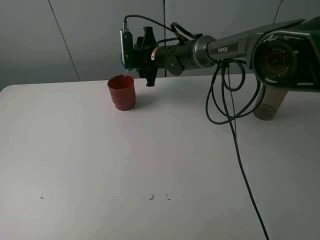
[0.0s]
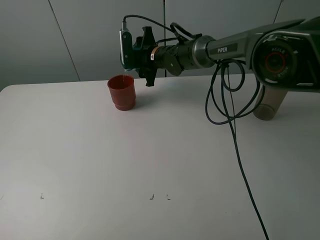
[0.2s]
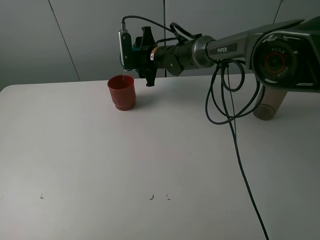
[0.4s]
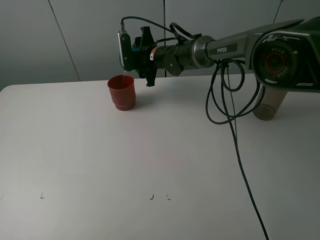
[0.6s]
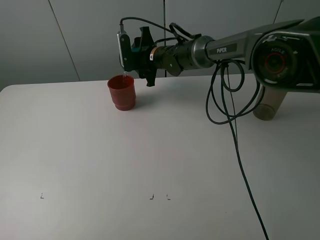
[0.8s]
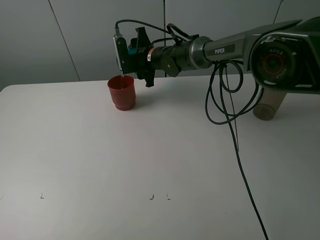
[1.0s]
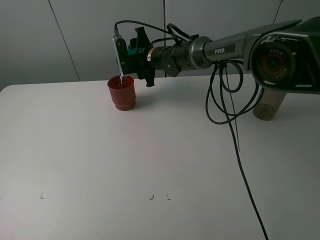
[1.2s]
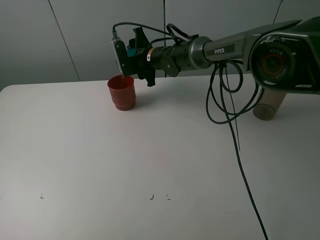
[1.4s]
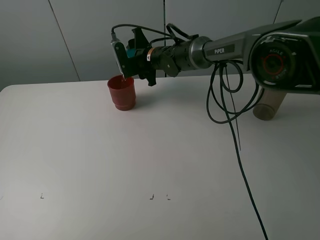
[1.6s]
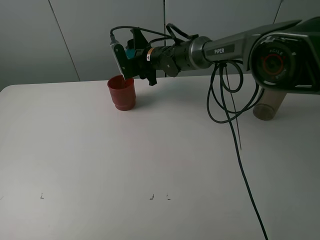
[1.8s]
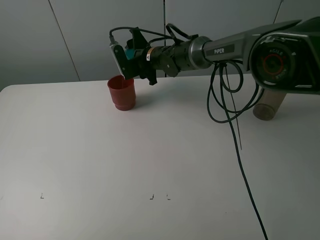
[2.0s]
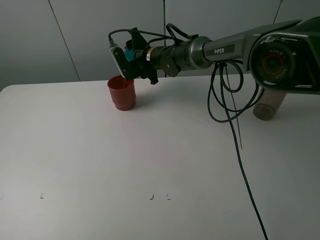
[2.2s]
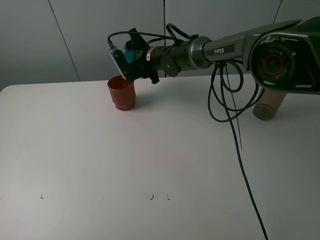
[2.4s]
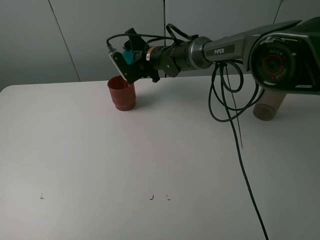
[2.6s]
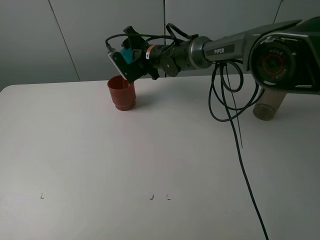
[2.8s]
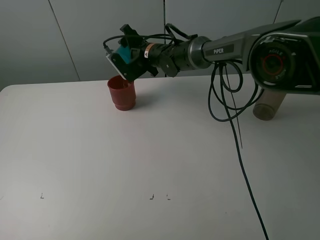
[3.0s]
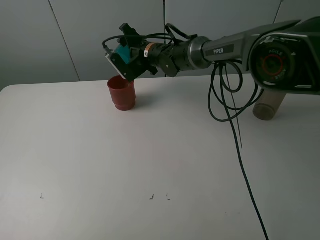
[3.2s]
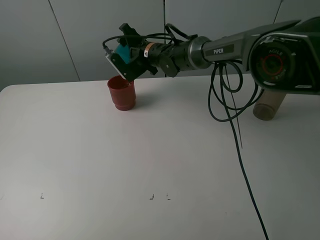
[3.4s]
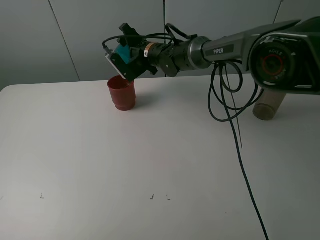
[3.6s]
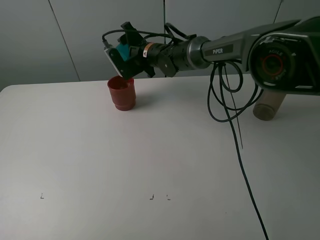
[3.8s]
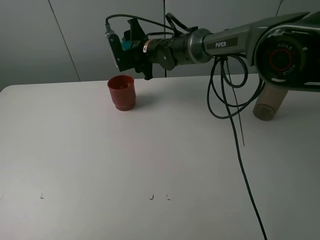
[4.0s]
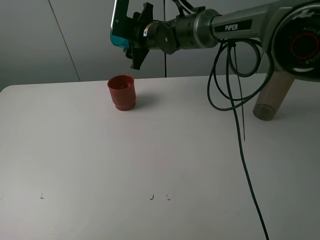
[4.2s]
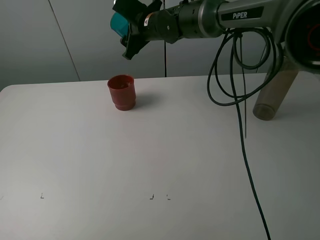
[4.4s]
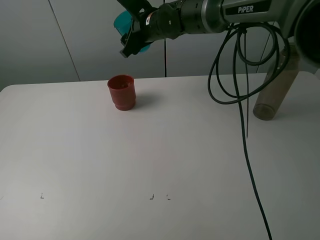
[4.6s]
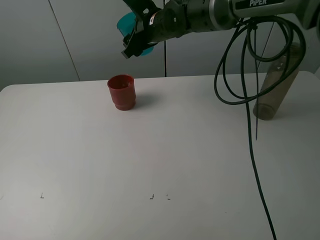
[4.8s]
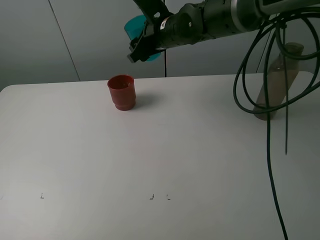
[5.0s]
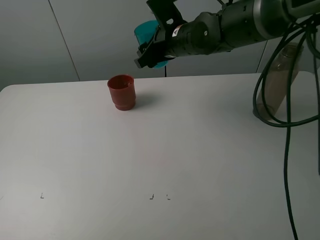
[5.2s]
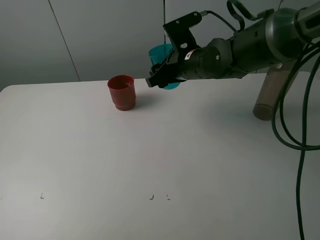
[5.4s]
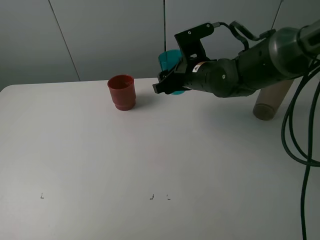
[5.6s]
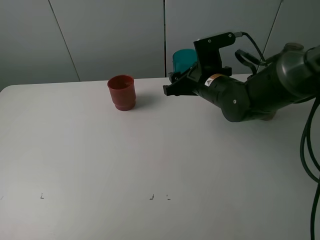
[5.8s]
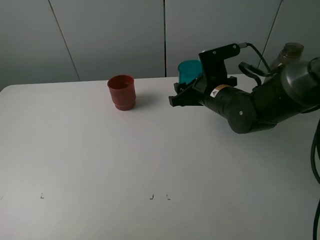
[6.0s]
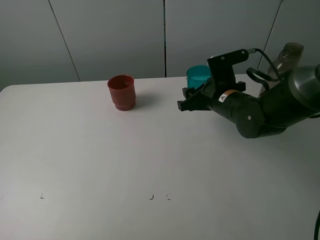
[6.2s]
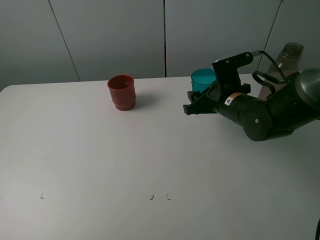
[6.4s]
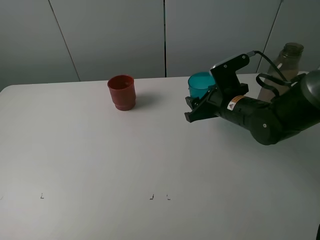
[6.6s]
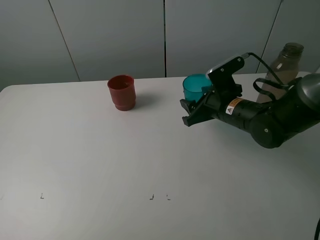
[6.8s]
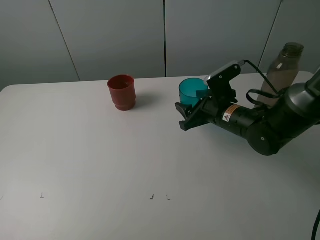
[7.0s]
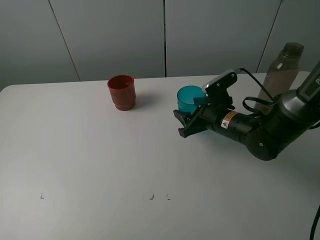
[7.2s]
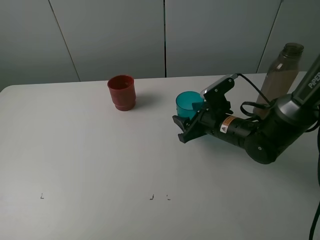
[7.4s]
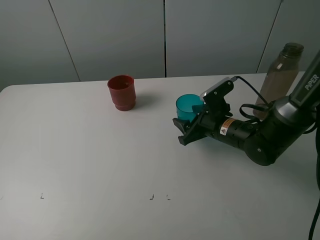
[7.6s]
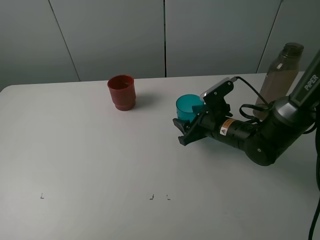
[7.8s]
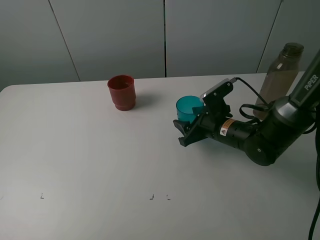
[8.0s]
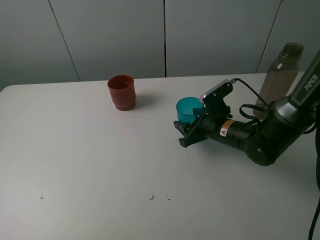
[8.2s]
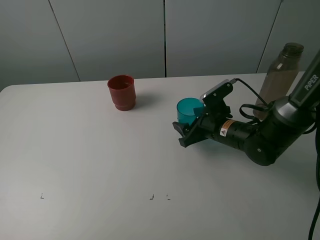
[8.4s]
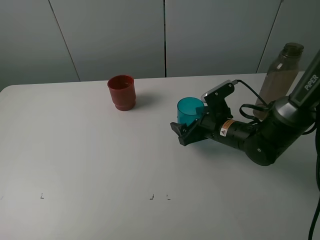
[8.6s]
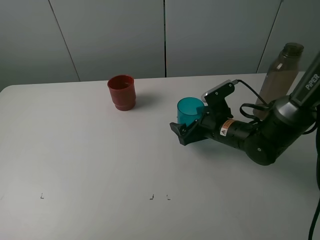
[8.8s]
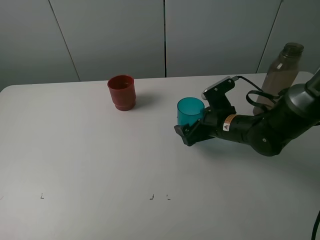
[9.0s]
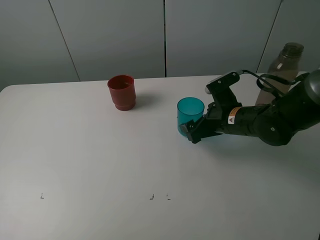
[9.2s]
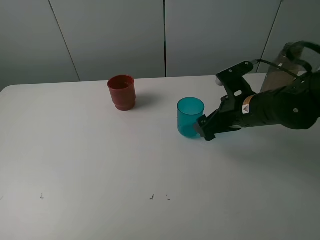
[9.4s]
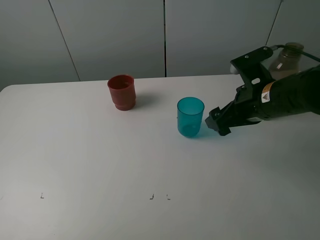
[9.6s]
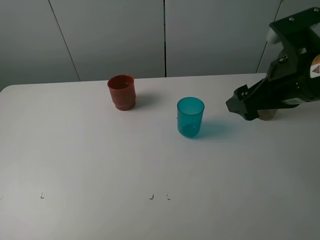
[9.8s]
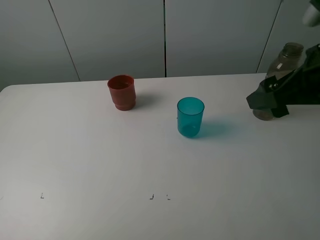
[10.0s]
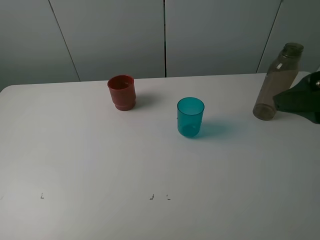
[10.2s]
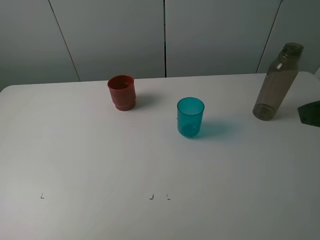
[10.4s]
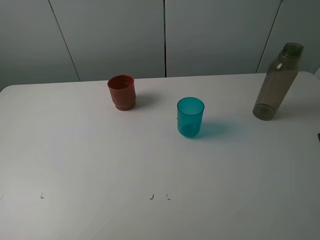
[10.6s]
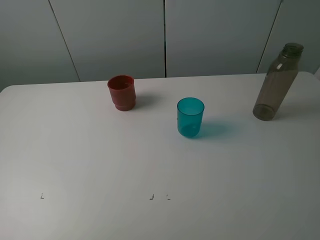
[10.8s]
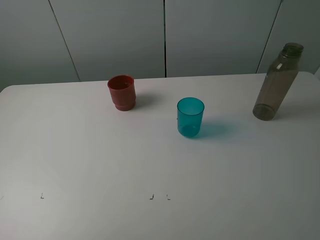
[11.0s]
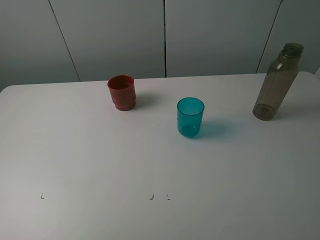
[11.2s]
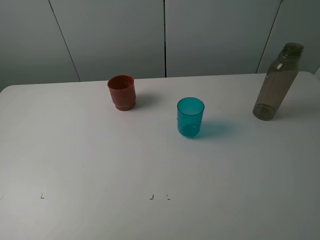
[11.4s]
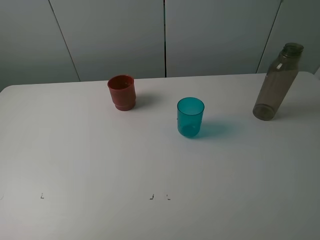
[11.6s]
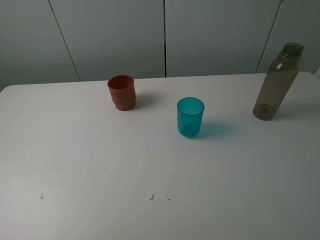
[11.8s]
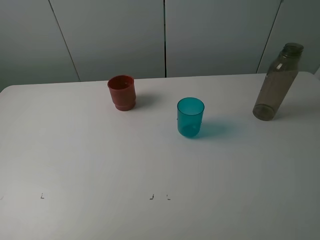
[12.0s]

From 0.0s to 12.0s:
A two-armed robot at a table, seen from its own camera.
Task of the whole recording: pick up the bottle and pour water into the cup, then pick up the cup containing water and pour it into another cup.
Step, from 0.0s to 3.8s: Pour water from blue cup to red cup with the right gripper.
Step, from 4.0s to 8.8s: Place the blue cup with the right gripper.
From 0.0s to 1.6s: The grippers make only small movements.
From 3.0s to 4.4s: The right gripper goes some 10 cm upward.
From 4.4s to 6.0s: The right gripper shifts approximately 20 cm backward, to the right and downward.
From 6.0s to 7.6s: The right gripper moves downward, roughly 5 cm.
From 7.6s to 9.0s: The right gripper opens its fingers.
From 9.0s to 10.4s: The right gripper shifts roughly 30 cm upward, backward and to the right.

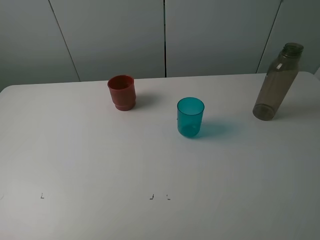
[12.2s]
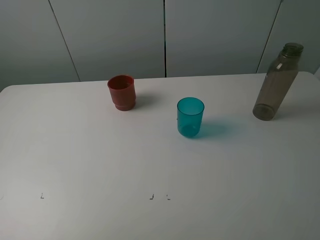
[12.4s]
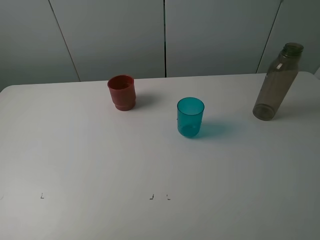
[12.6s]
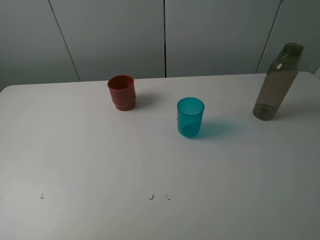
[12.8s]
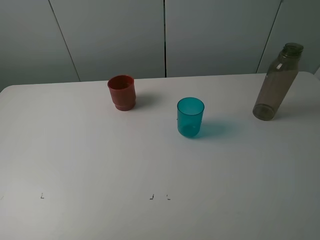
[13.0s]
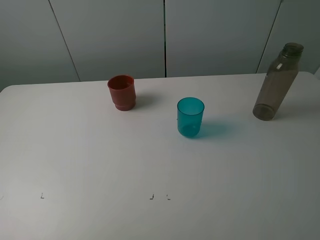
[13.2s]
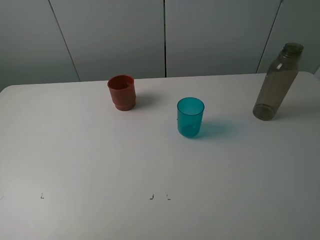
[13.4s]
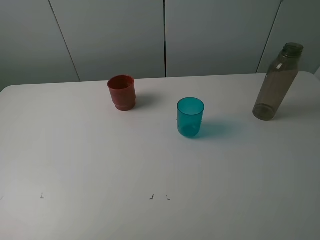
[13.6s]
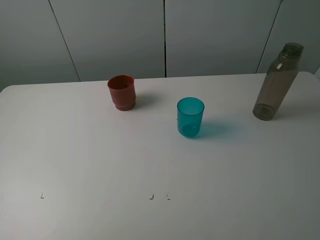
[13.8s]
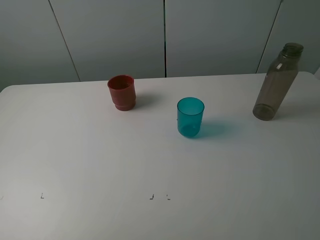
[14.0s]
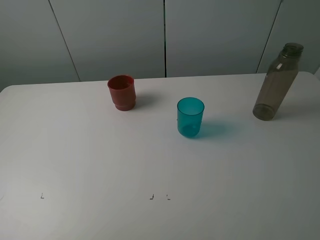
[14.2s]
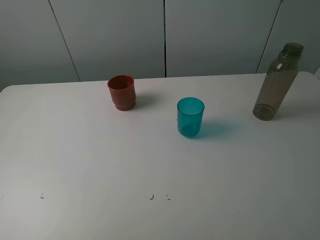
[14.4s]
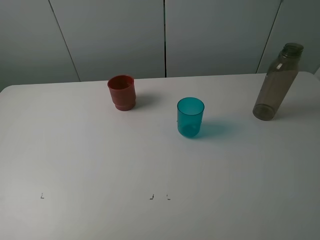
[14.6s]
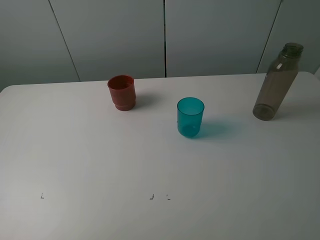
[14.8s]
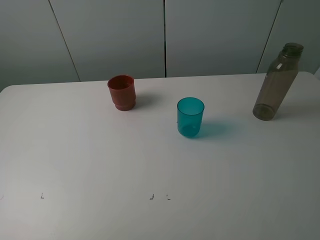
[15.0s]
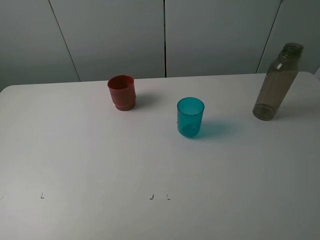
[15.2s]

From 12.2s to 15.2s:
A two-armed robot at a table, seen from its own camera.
Task of the whole recording: pick up the bottle and pour water into the cup, then pick up the cup containing water and pour it into another cup.
From 13.8s to 15.2s: The two grippers keep their place.

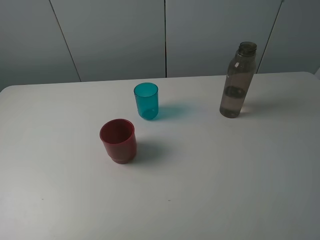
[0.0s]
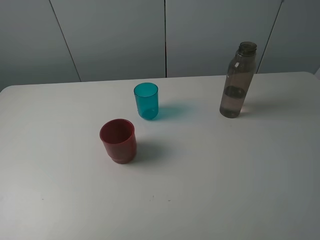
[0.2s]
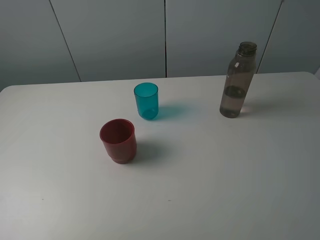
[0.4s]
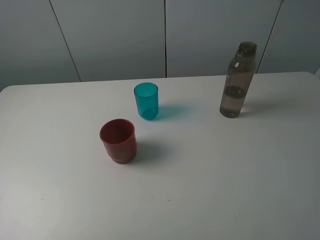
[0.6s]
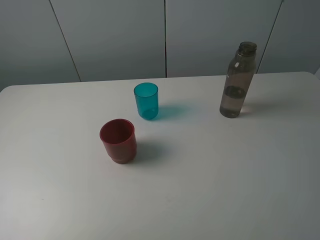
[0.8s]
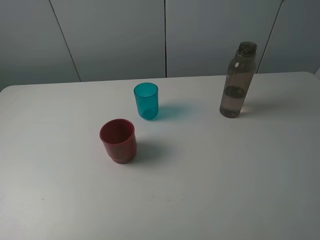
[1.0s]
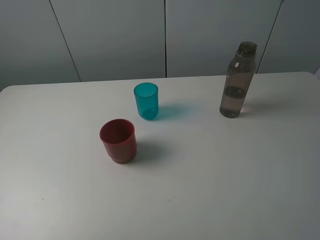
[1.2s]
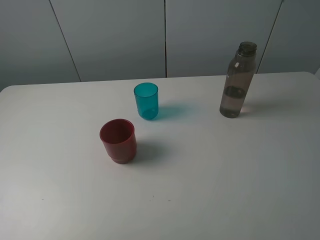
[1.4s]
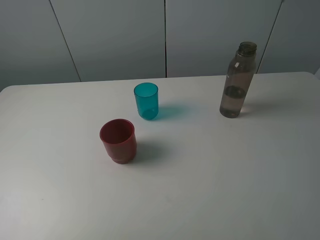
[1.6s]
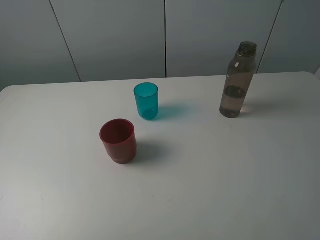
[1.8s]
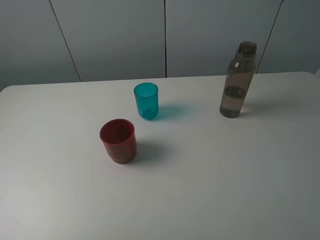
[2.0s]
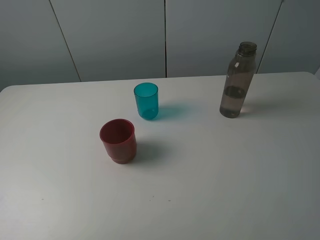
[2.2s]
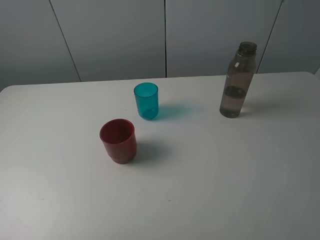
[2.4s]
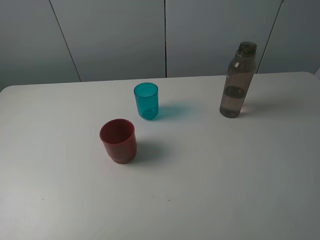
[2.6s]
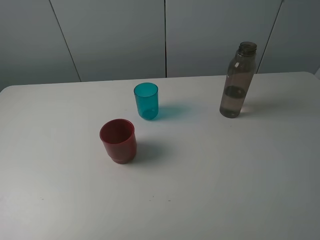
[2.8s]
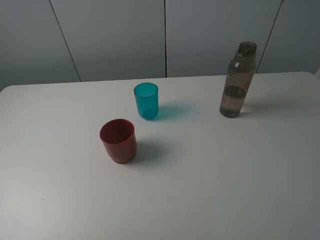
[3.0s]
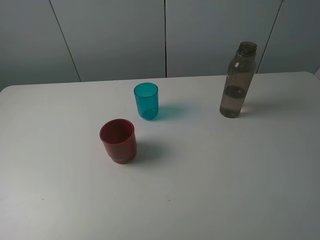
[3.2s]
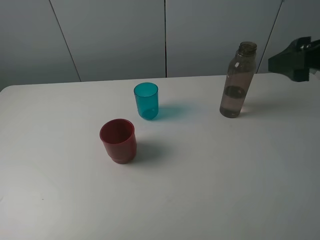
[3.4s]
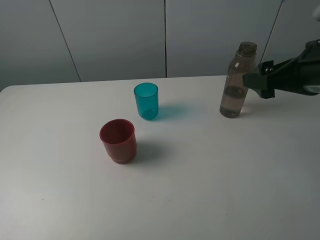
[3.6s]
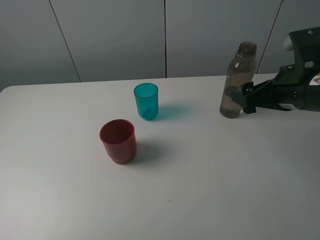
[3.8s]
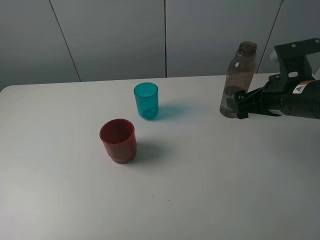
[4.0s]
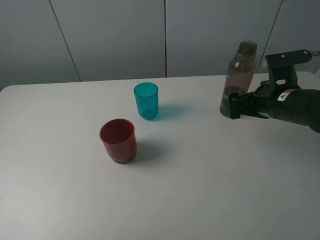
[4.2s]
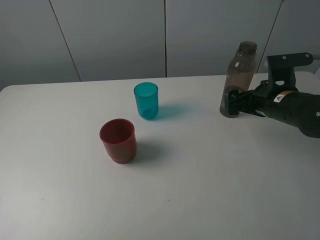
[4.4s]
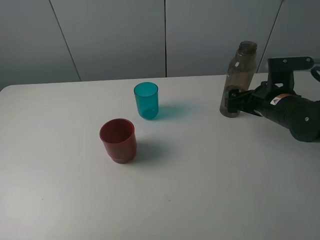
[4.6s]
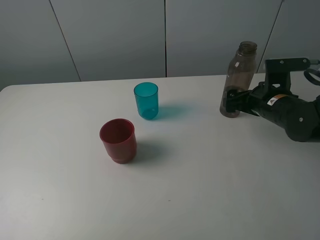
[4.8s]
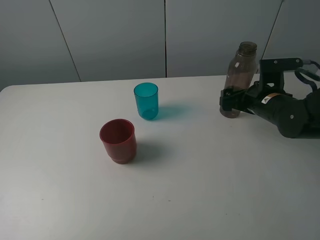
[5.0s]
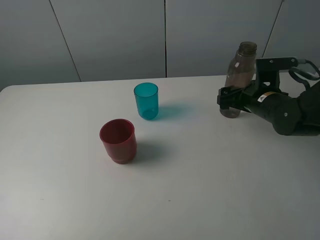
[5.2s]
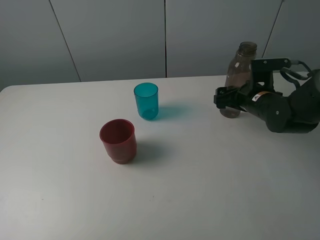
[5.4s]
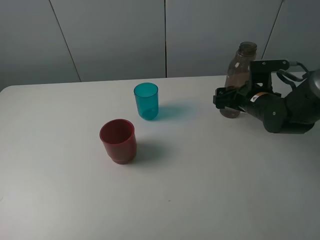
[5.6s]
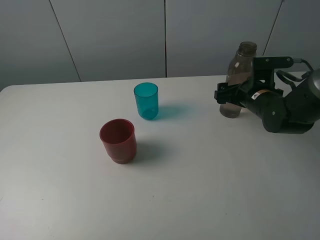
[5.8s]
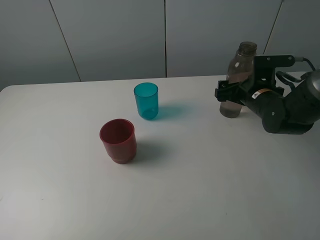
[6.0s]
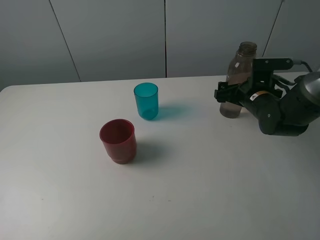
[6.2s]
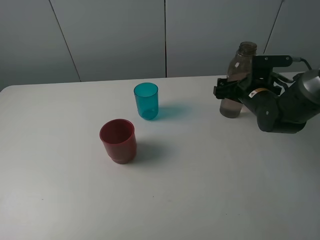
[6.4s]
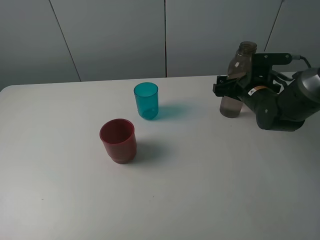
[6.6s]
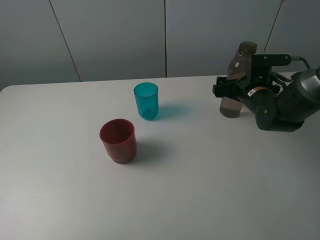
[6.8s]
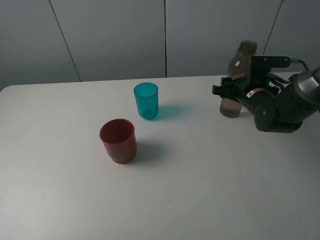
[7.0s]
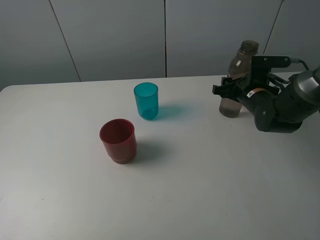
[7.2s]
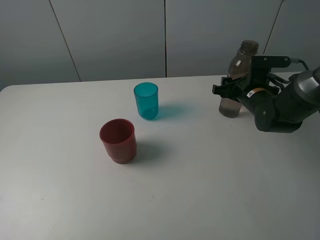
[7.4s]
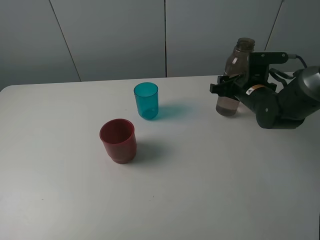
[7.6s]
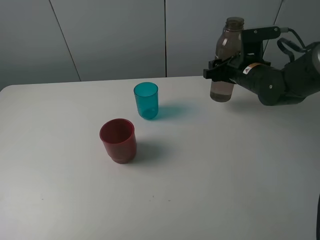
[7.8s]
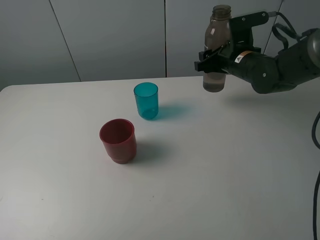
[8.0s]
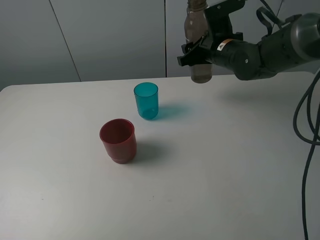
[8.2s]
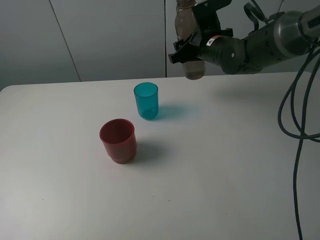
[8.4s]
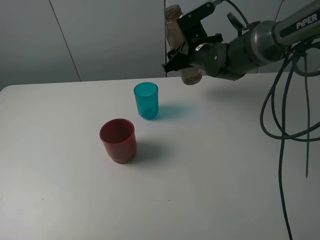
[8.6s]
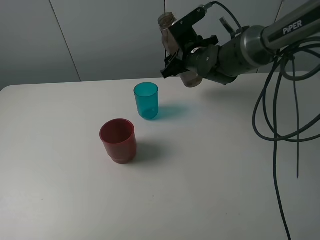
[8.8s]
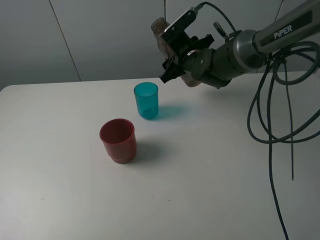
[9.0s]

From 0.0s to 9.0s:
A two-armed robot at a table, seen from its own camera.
Task of the whole recording: pick up the bottle and pour water into the cup, then pick up the cup containing water and pour it into another cup.
Step, from 0.0s to 7.2s: Grasp the brown bottle with the right gripper.
From 0.0s to 1.6s: Neither gripper changes place.
From 3.0s to 4.4s: The right gripper travels downward and forward by approximately 25 cm.
From 4.4s to 6.0s: The right gripper is displaced forward by about 5 cm.
From 6.0s to 7.6s: The right gripper closes up.
From 7.6s to 9.0s: The right gripper heads to the left and forward, covering about 15 cm.
